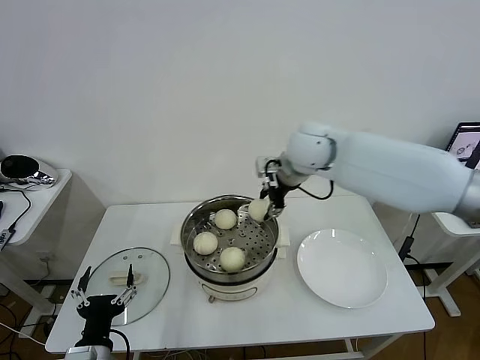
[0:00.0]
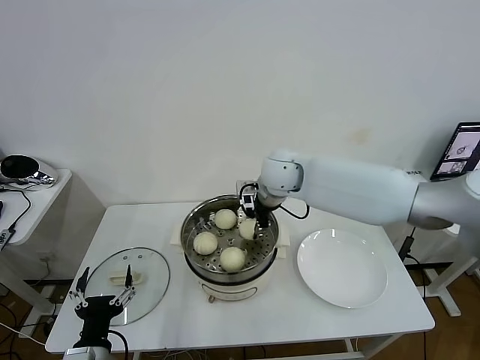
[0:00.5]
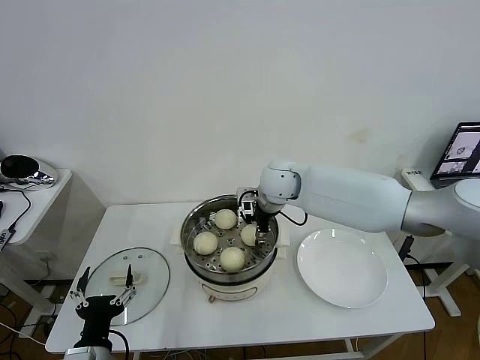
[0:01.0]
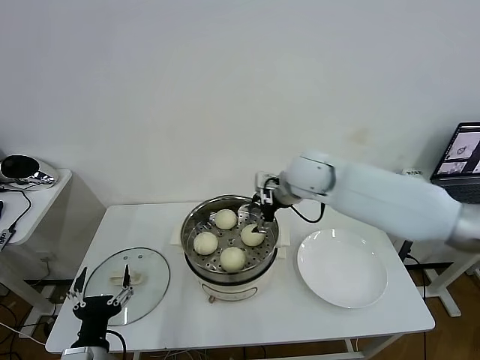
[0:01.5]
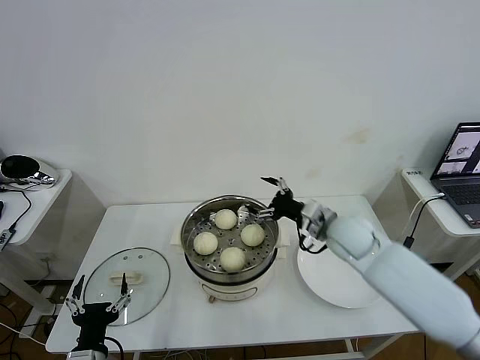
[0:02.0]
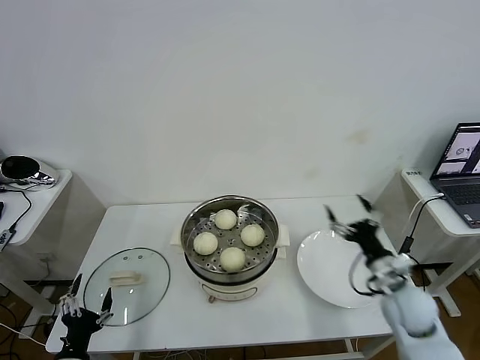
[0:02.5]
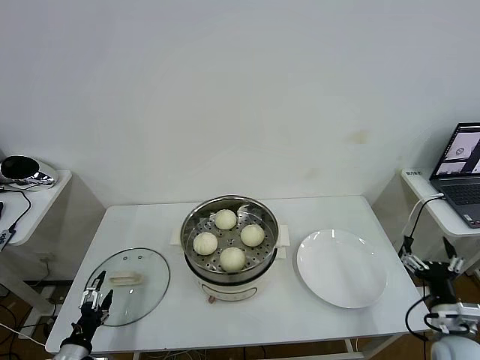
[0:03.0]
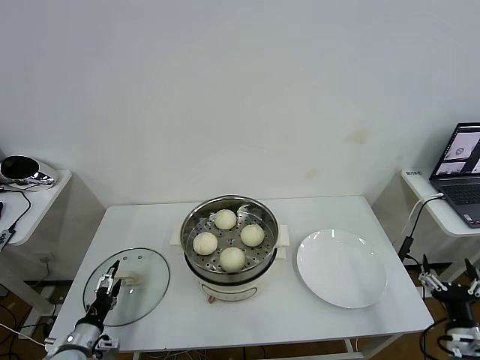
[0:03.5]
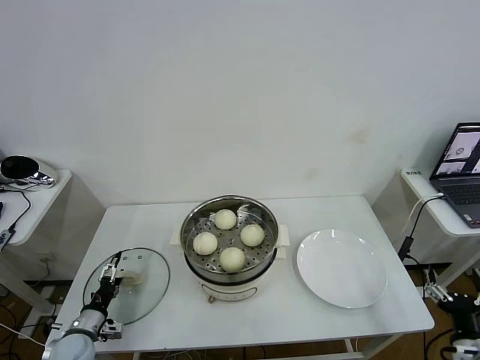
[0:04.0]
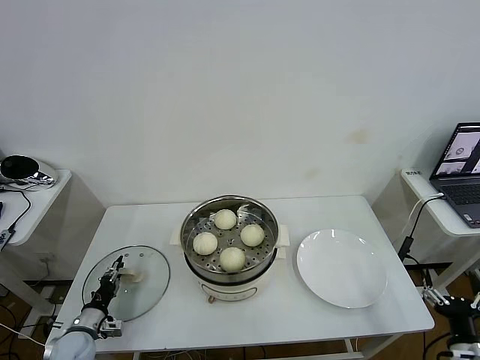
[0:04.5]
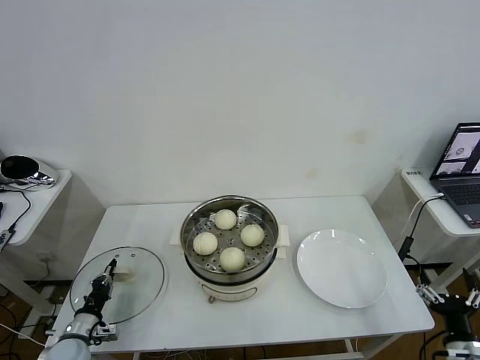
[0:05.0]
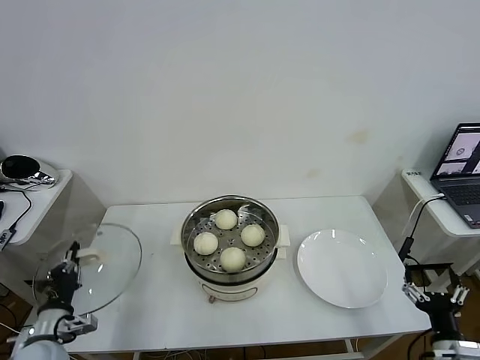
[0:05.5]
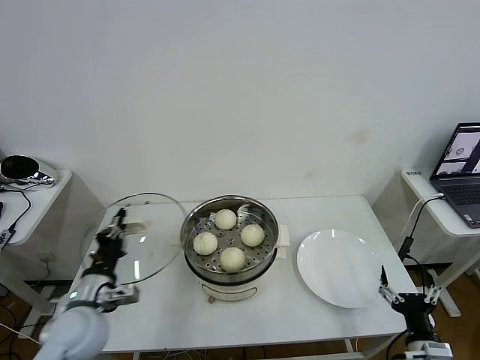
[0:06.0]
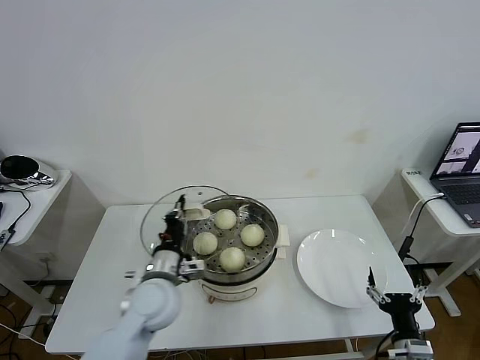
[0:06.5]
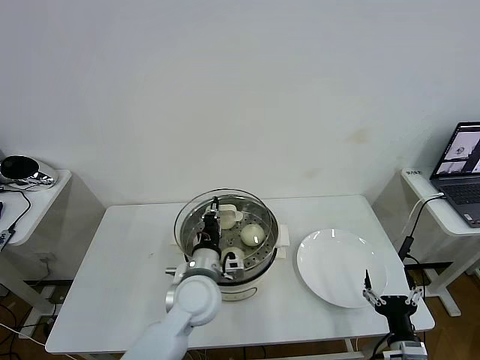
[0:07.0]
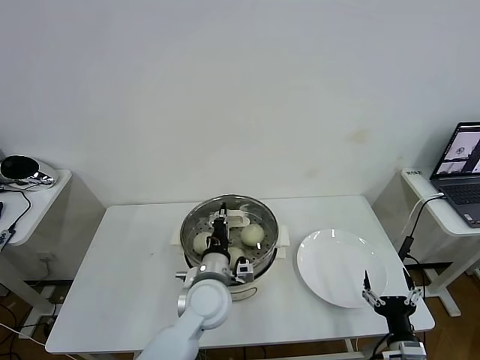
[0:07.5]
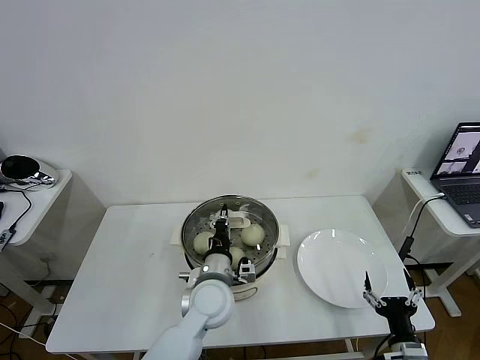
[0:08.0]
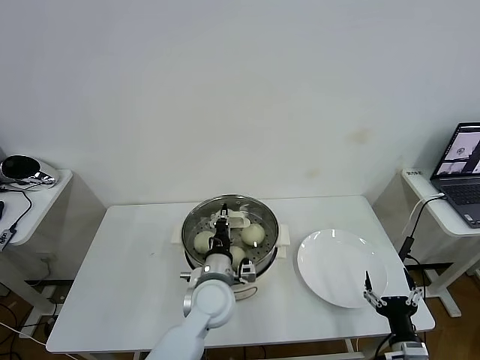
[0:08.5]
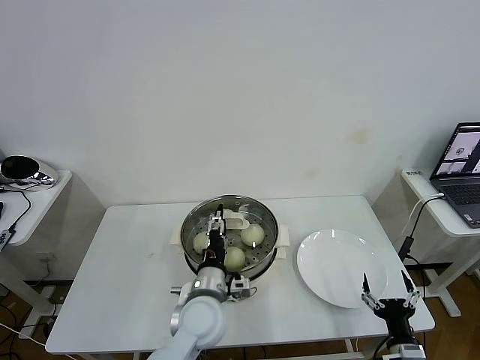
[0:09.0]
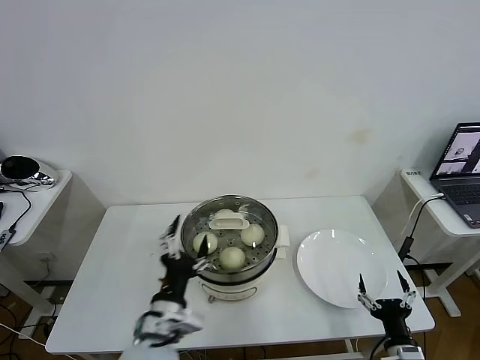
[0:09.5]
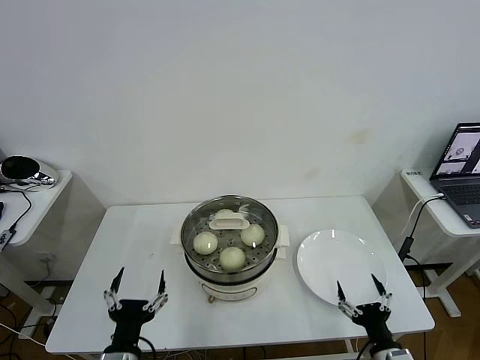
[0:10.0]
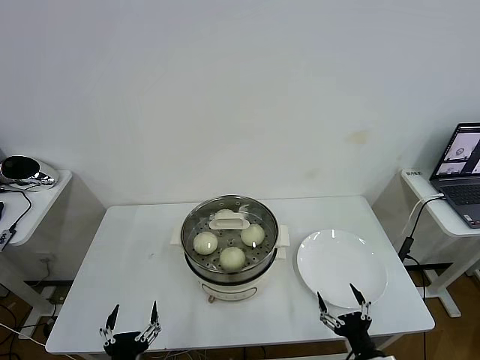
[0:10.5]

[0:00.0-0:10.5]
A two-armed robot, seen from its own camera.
Task of the whole recording: take steamed baozi put them in steamer then cover it.
Step, 0:00.0 to 0:01.5: Place the baozi on the steamer with right gripper.
Step, 0:02.0 to 0:05.0: Grasp the pot lid with left gripper.
Step, 0:05.5 to 0:09.0: Place the pot lid on the steamer with left gripper.
0:00.0 to 0:02.0: The right gripper travels downward, to the right and backward by some 20 cm, and opens.
0:02.0 to 0:04.0: The right gripper goes approximately 35 cm backward, to the right and downward. The left gripper travels to the left, forward and downward by approximately 20 cm.
0:04.0 to 0:06.5: The left gripper moves to the right and upward, roughly 30 cm, and closes up; the right gripper moves to the left, some 10 cm.
0:06.5 to 0:08.5: The left gripper shifts some 10 cm to the right.
0:08.5 to 0:10.5: The right gripper shifts roughly 5 cm to the left, while the left gripper heads backward and to the left, covering roughly 30 cm, and opens up.

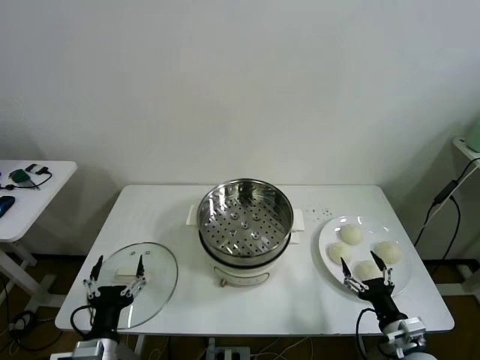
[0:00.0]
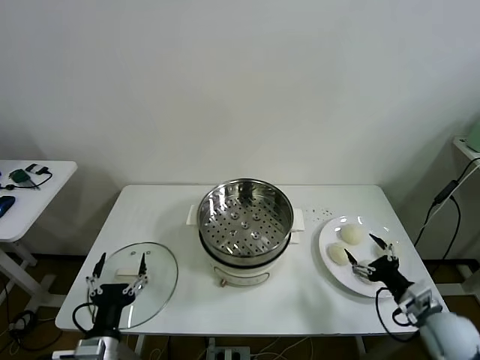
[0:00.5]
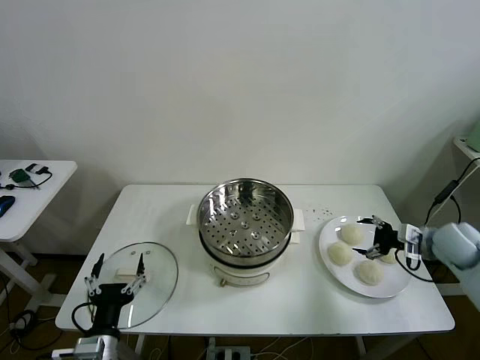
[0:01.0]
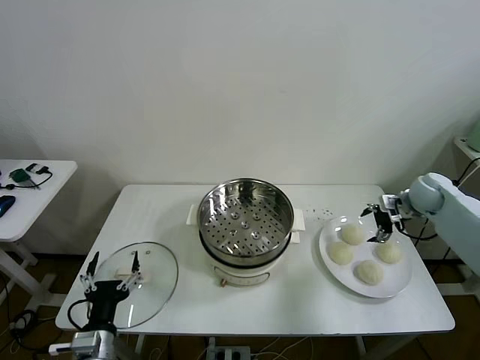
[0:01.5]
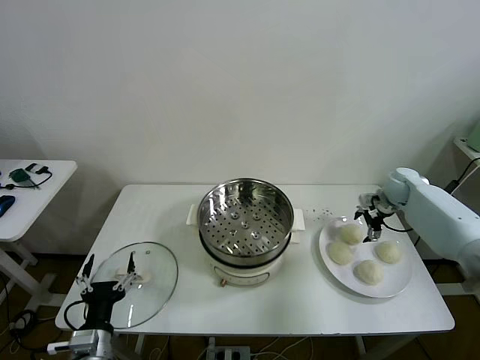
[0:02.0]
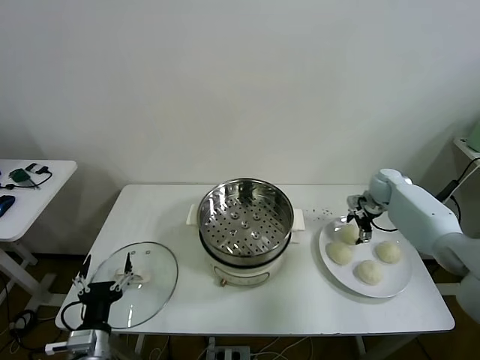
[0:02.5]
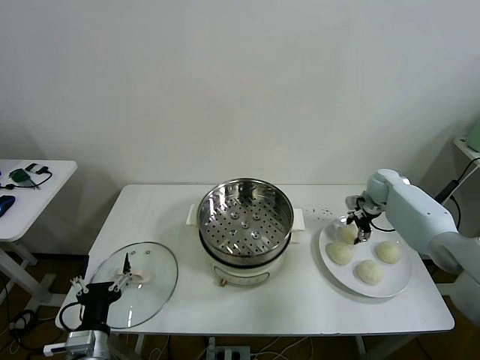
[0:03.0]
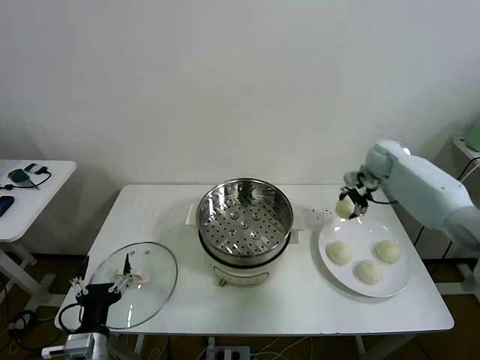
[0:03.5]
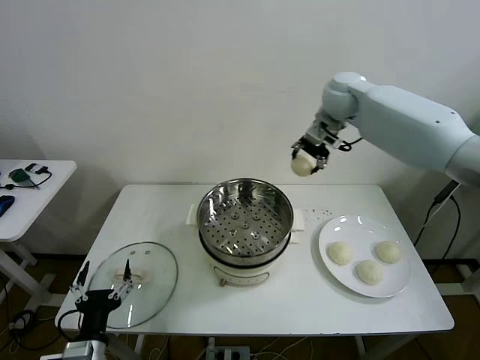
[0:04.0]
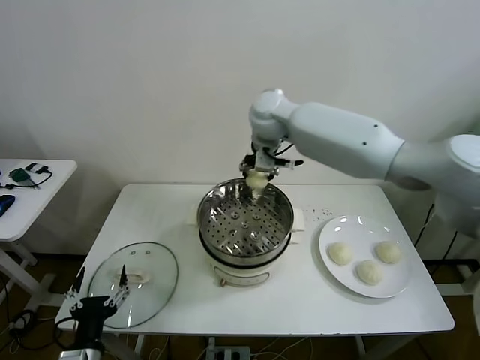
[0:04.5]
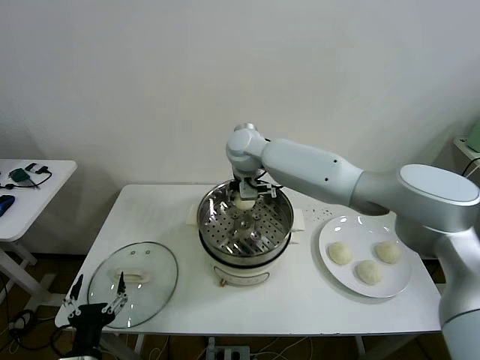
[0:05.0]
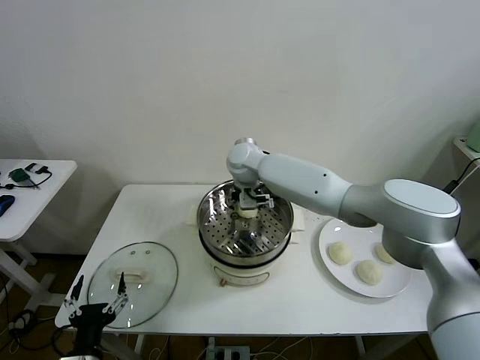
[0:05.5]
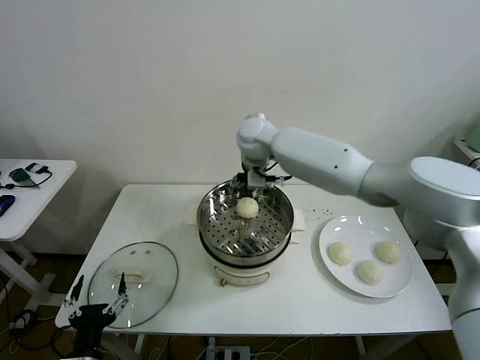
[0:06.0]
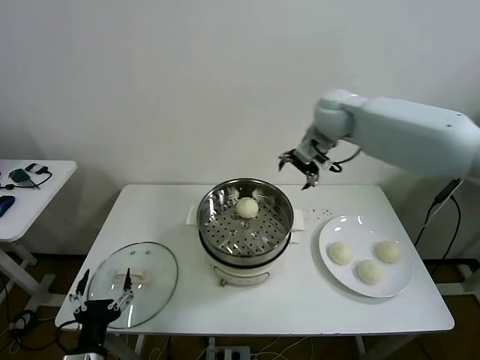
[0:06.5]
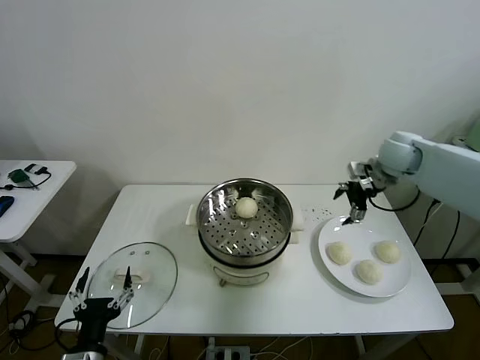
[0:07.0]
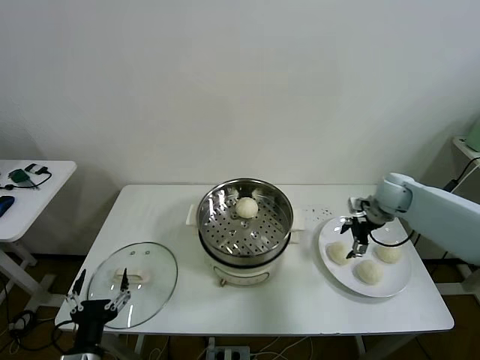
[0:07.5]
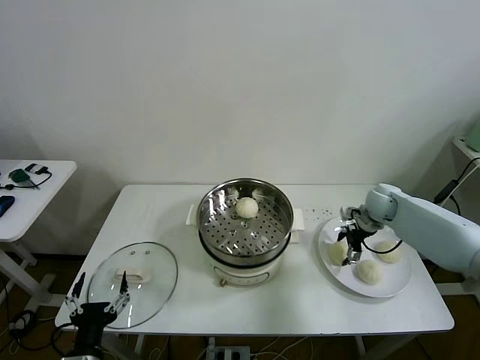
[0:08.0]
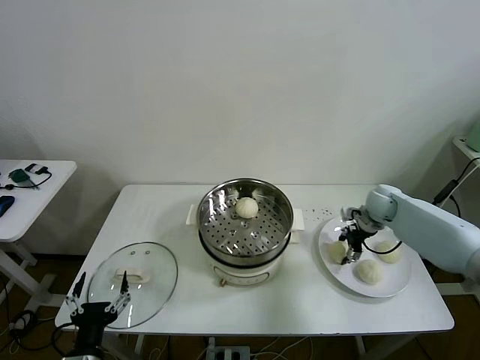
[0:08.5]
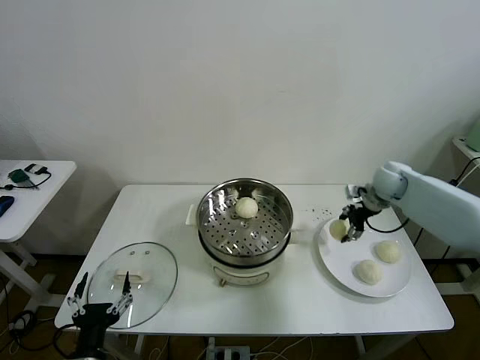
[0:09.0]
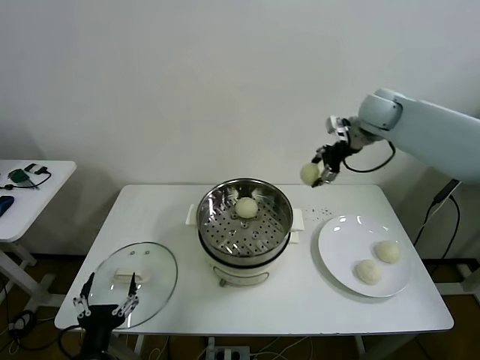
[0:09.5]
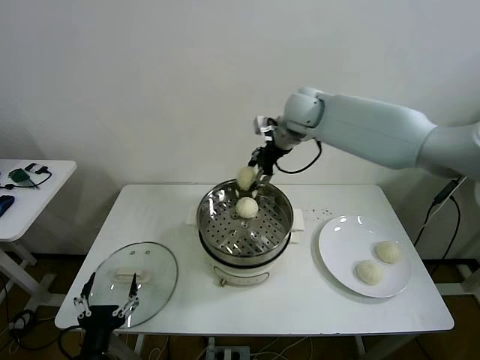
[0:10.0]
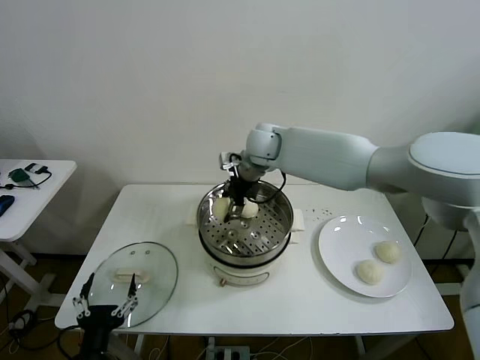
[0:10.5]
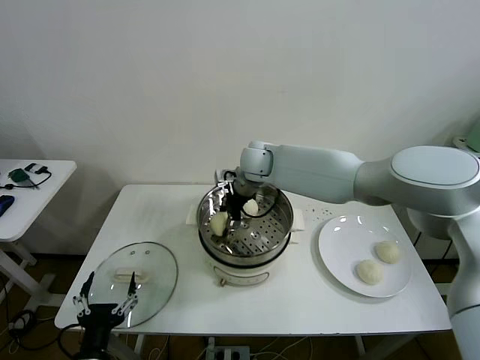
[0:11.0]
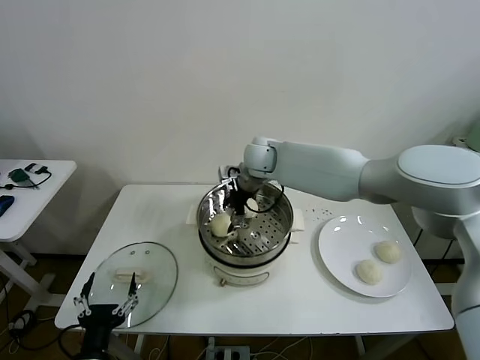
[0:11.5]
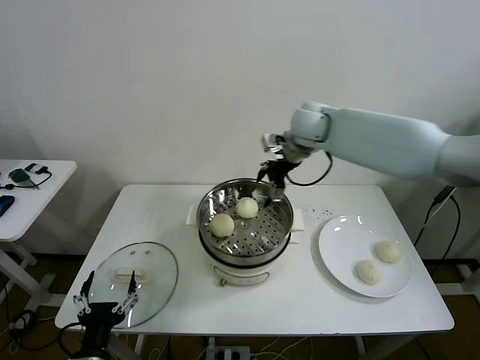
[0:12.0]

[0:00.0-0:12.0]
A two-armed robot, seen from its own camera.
Task of the whole recording: take steamed baozi put them in steamer then cover it.
Step, 0:00.0 to 0:02.5: Grasp the baozi in the plate with right gripper.
Step, 0:03.5 to 0:05.5: Place the baozi on the steamer with right gripper.
Step, 0:06.0 to 0:08.5: Grasp the baozi in the plate with right gripper.
Step, 0:09.0 to 0:11.0: Place the baozi on the steamer with right gripper.
0:02.0 to 0:04.0: The right gripper goes approximately 35 cm upward and to the left, and closes.
0:04.0 to 0:06.0: The right gripper heads to the left and downward, covering approximately 15 cm, and opens its fingers.
0:06.0 to 0:08.0: The right gripper moves to the right and downward, roughly 40 cm.
0:08.0 to 0:10.0: The right gripper shifts roughly 35 cm to the left and upward, and closes its fingers.
0:10.0 to 0:12.0: The right gripper goes approximately 5 cm to the right, and opens up.

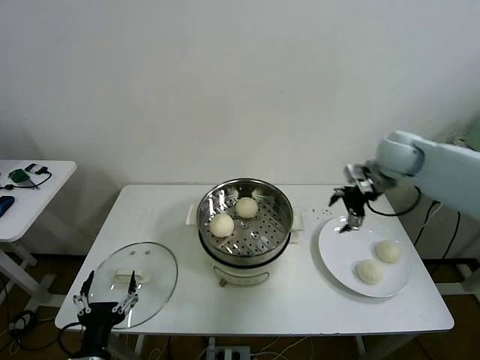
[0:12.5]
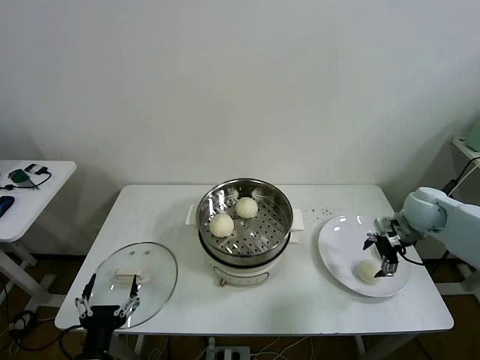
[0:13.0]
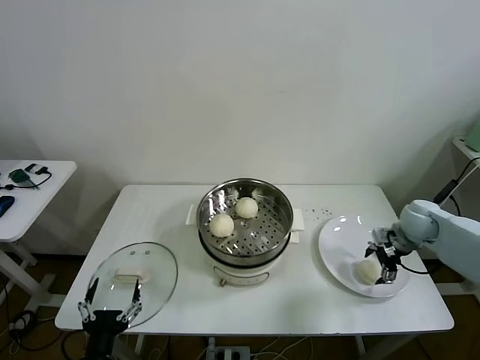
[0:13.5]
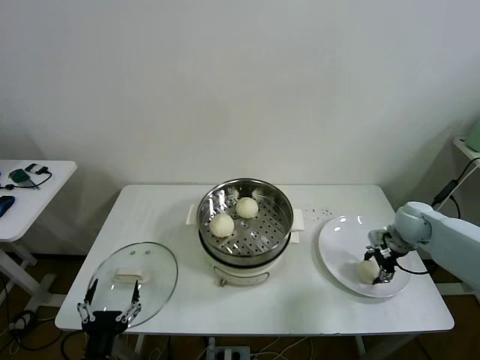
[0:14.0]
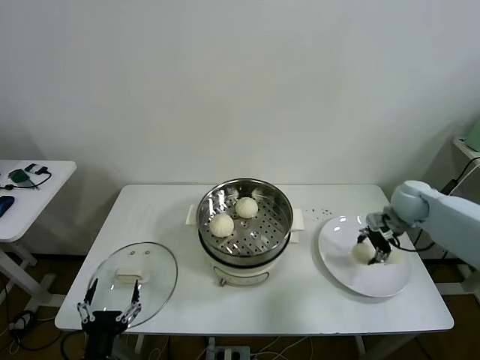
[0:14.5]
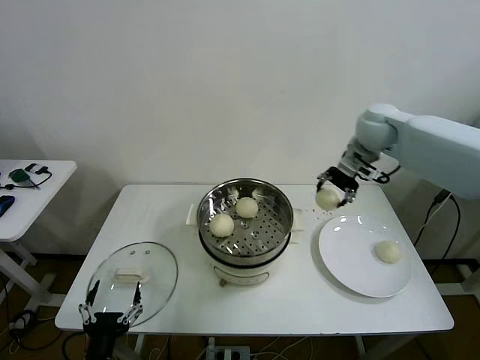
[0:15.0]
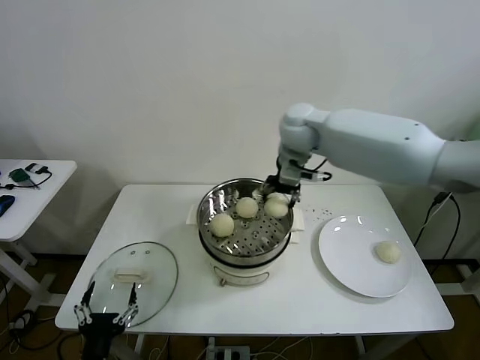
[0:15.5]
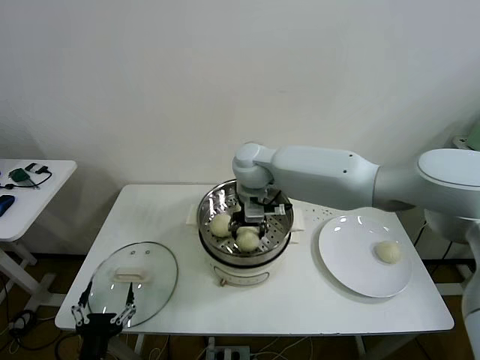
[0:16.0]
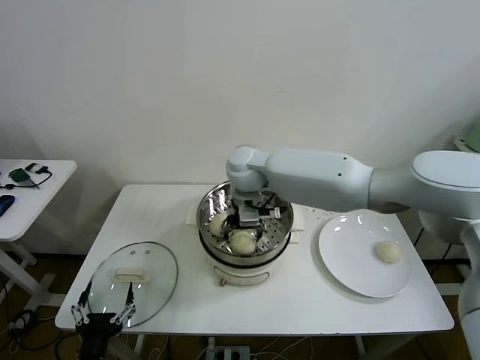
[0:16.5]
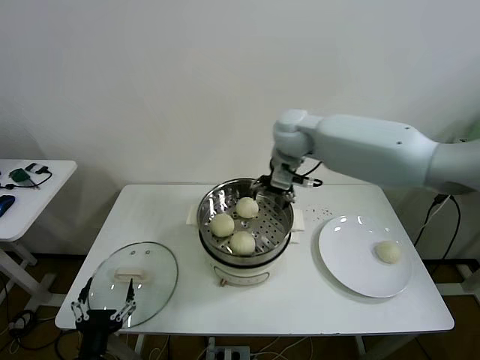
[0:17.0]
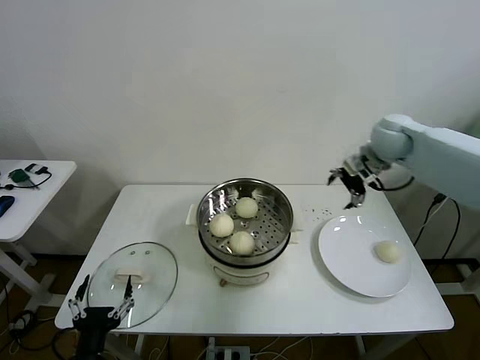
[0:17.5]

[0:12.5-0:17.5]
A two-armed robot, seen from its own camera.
Task of the whole recording: take steamed baozi put them in steamer then cover it.
Step, 0:12.5 to 0:14.0: Grasp the baozi in the plate with right gripper.
Step, 0:14.5 to 0:16.5: Place the baozi on the steamer with right gripper.
0:12.5 to 0:15.0: The right gripper goes roughly 10 cm to the left and forward, goes downward and returns, approximately 15 cm each way, and closes its fingers.
0:15.0 to 0:17.5: The right gripper reaches about 25 cm to the left, then returns, and opens its fingers.
